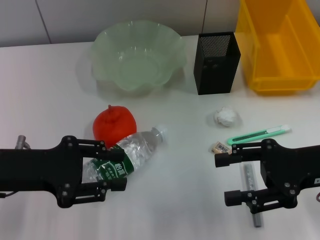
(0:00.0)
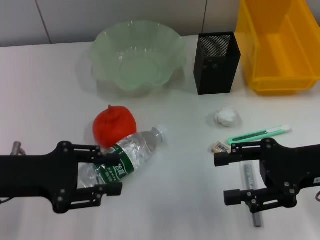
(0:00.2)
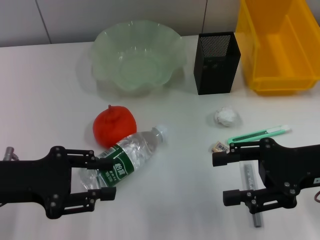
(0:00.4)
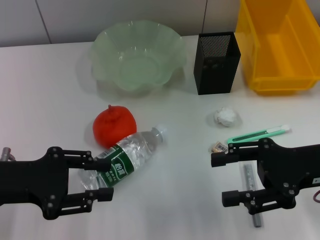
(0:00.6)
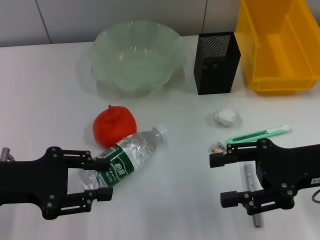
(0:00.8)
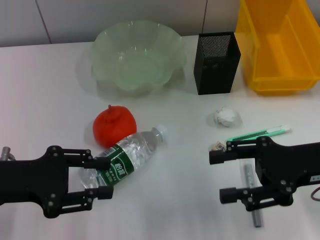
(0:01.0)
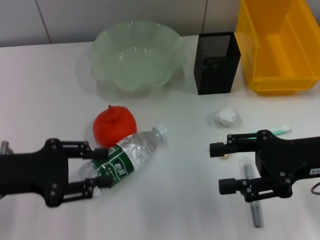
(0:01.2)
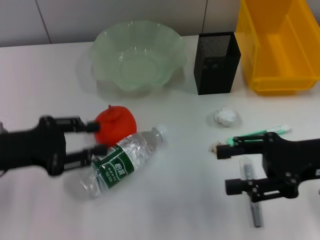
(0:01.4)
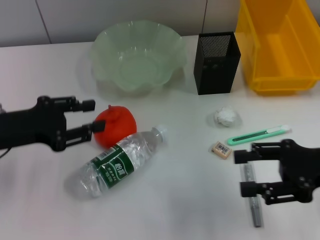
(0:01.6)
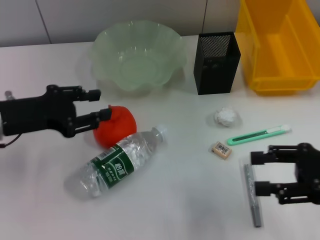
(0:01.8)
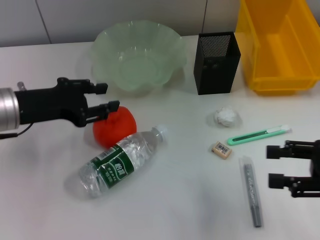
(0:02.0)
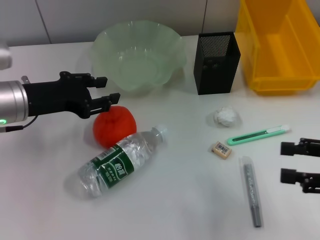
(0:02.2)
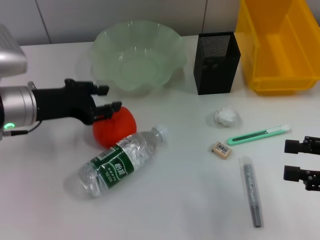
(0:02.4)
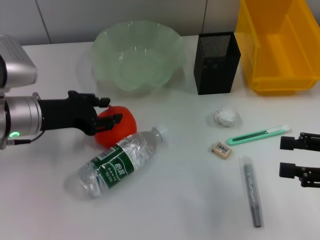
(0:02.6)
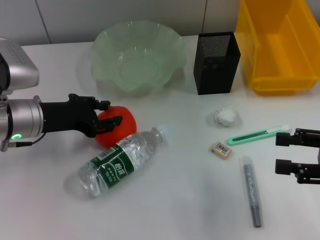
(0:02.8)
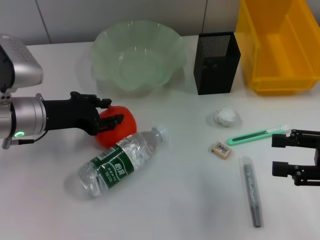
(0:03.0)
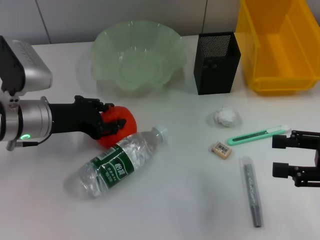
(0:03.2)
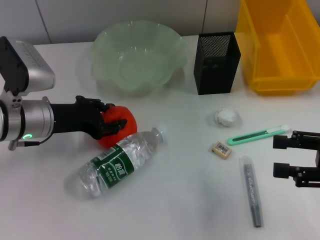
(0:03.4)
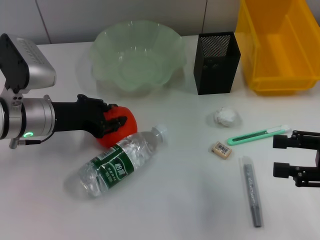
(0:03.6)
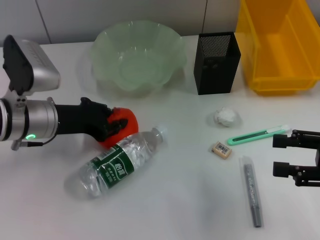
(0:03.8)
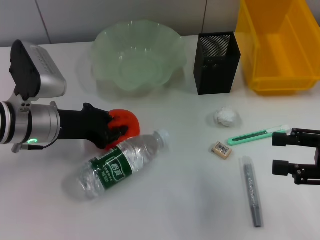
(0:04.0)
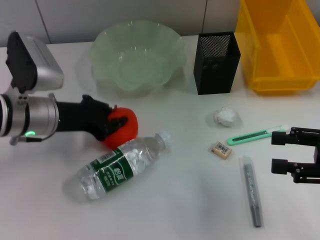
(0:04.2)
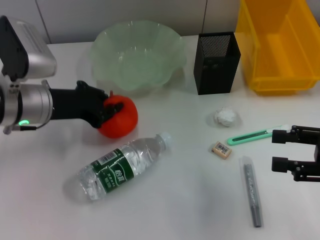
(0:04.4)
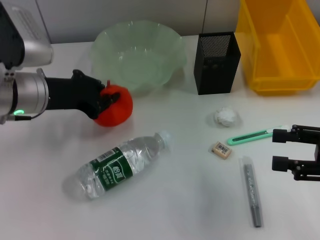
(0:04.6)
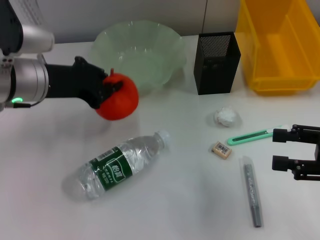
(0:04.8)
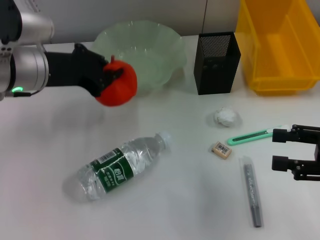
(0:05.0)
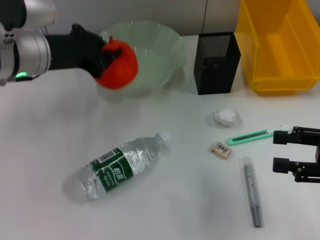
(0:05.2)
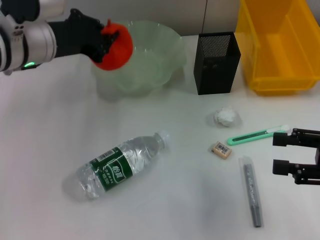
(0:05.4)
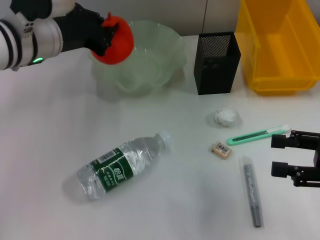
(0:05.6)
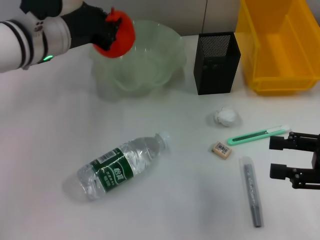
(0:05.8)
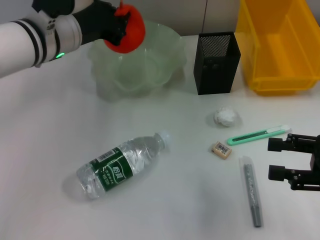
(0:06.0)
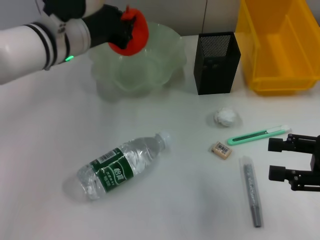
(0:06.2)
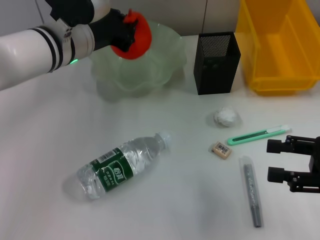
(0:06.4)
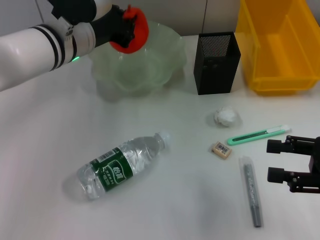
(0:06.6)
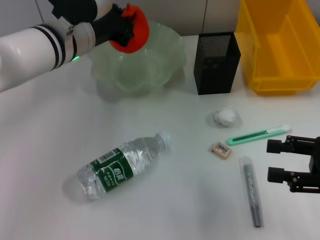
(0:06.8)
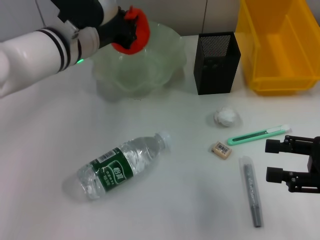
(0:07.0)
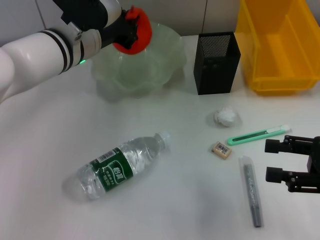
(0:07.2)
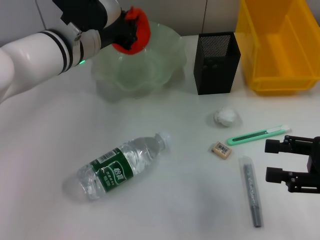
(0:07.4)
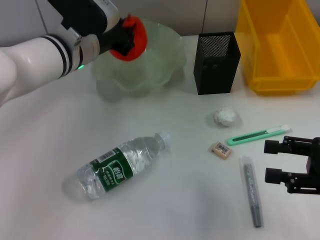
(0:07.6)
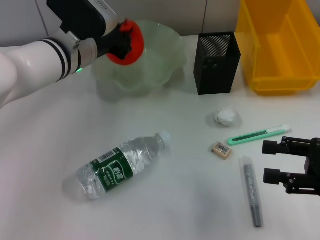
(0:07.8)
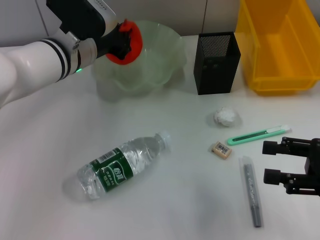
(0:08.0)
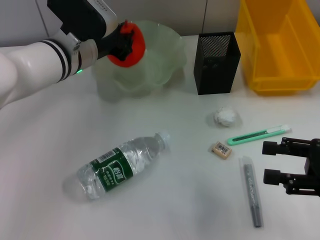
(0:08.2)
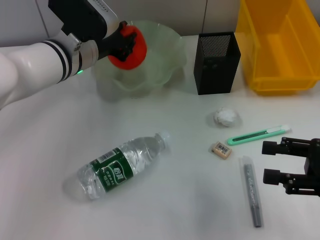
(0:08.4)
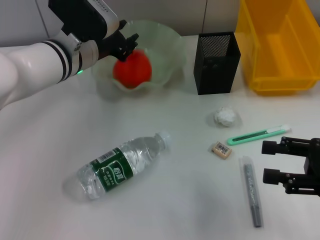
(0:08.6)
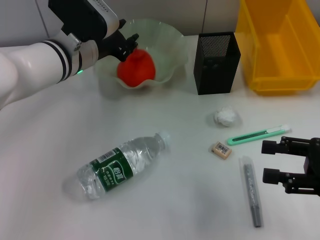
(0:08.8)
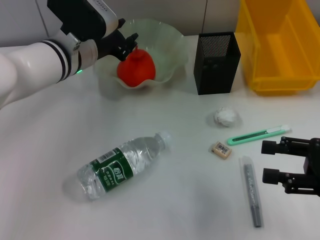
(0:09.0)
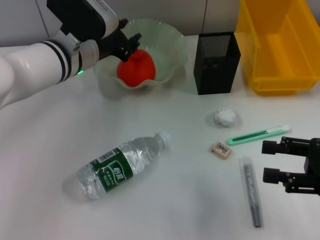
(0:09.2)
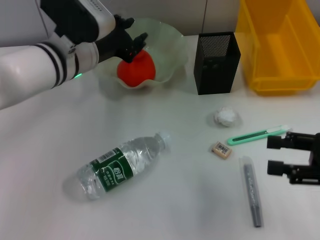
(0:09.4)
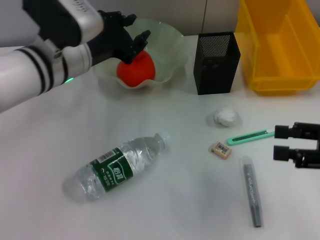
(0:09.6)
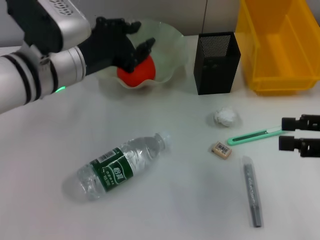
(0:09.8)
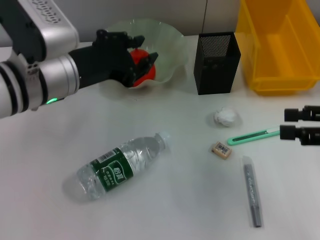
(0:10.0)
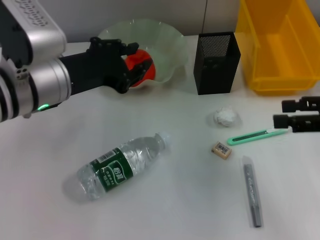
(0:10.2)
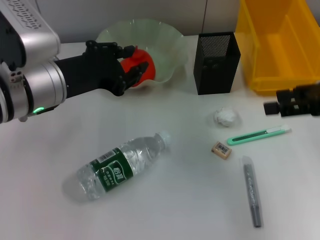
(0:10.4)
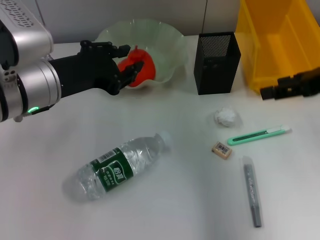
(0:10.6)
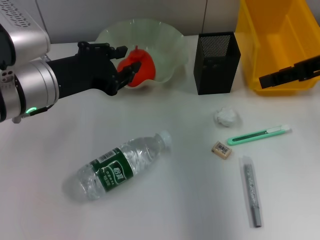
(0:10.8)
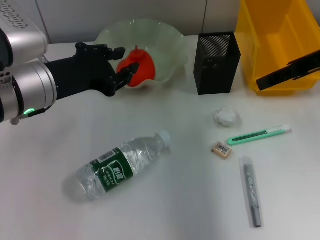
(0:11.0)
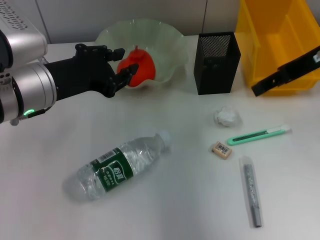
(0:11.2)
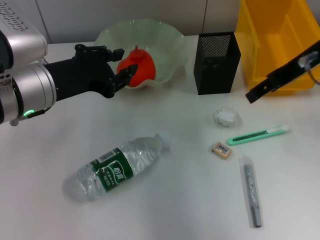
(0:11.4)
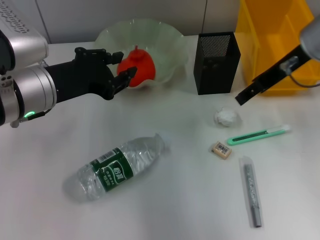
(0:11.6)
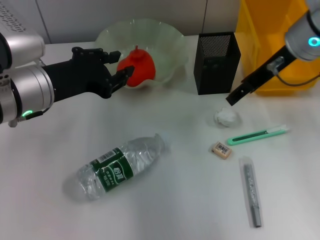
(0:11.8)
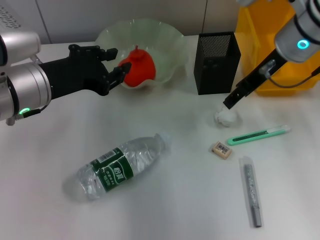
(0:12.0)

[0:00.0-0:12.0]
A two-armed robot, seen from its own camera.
Step, 0:00.0 to 0:03.6: Grab the orange with the left hand.
Step, 0:03.8 to 0:08.8: Place the orange into the fruit bowl with the left hand.
0:00.0 to 0:01.6: There are only small adjustments of the grippers.
0:01.6 to 0:03.0: The left gripper goes some 10 cm forward and to the right.
0:03.0 to 0:04.4: The left gripper closes.
0:04.4 to 0:06.0: The left gripper goes some 10 cm to the right, forward and upward.
0:06.0 to 0:07.6: The grippers make only small movements.
0:07.6 to 0:09.0: The left gripper opens up.
0:09.0 to 0:10.4: The right gripper moves upward and forward, about 10 cm, while the left gripper goes about 10 cm backward.
0:10.4 to 0:12.0: The right gripper moves forward and to the left, roughly 15 cm.

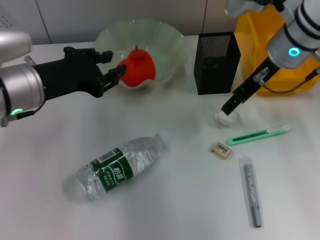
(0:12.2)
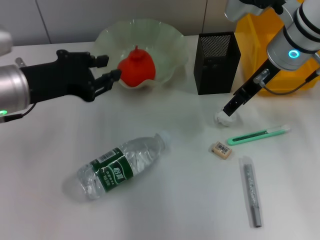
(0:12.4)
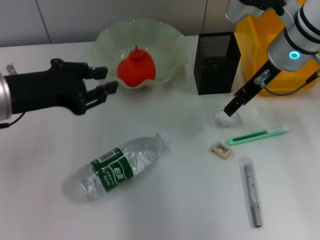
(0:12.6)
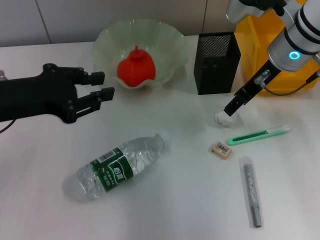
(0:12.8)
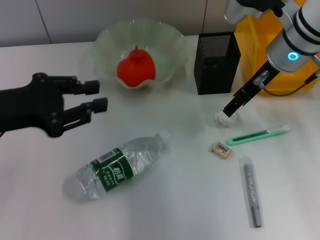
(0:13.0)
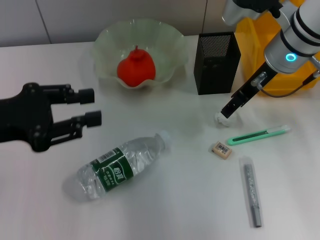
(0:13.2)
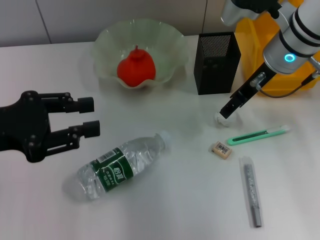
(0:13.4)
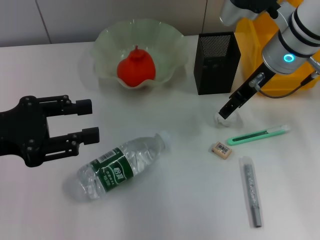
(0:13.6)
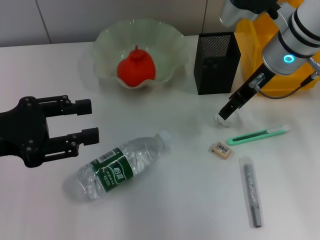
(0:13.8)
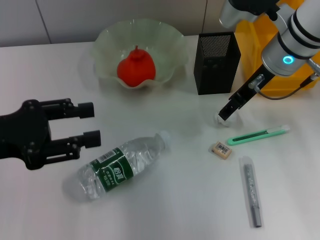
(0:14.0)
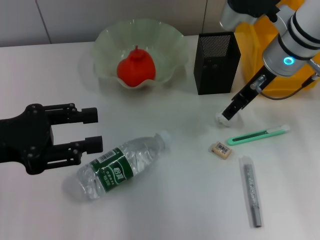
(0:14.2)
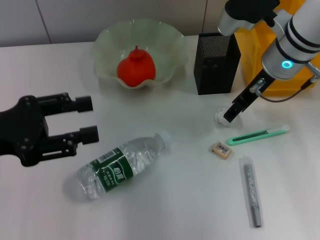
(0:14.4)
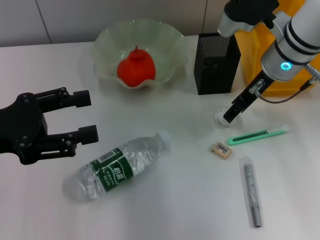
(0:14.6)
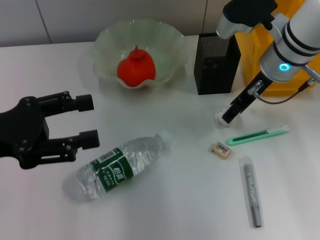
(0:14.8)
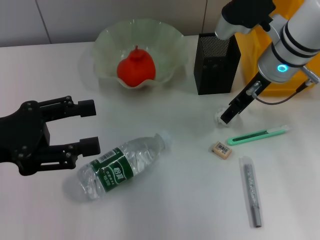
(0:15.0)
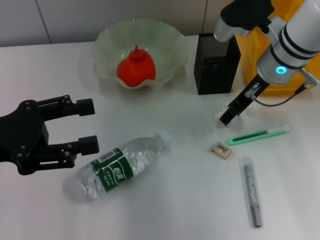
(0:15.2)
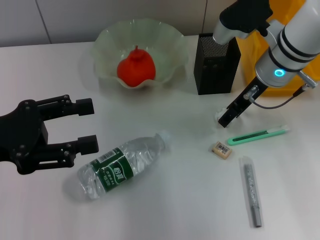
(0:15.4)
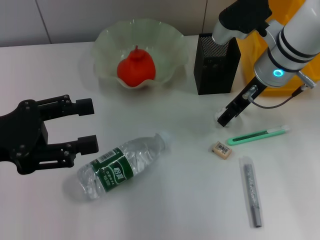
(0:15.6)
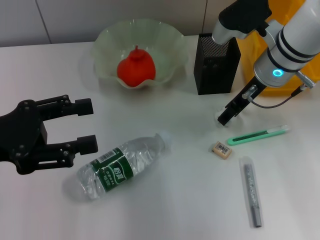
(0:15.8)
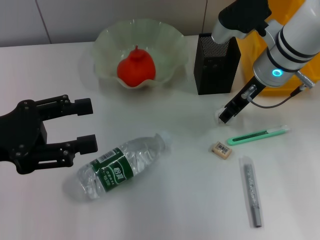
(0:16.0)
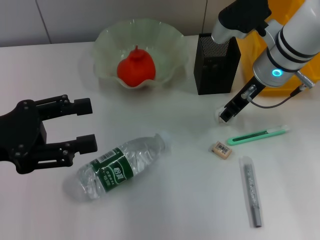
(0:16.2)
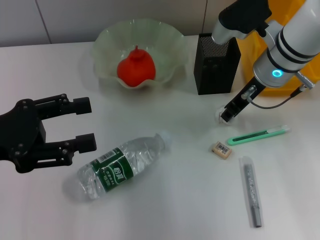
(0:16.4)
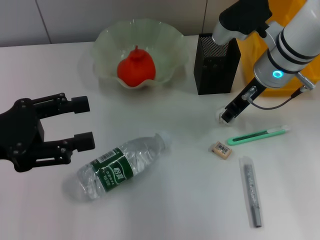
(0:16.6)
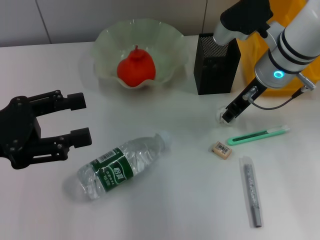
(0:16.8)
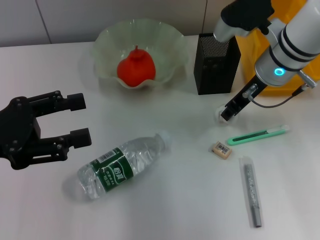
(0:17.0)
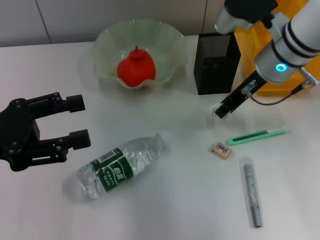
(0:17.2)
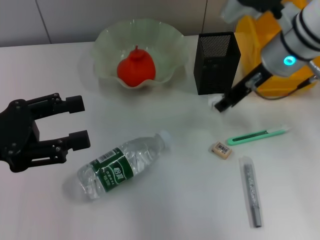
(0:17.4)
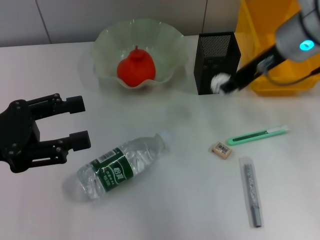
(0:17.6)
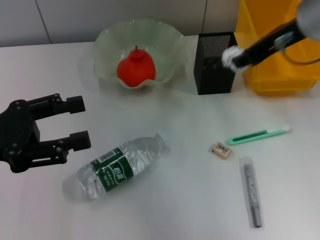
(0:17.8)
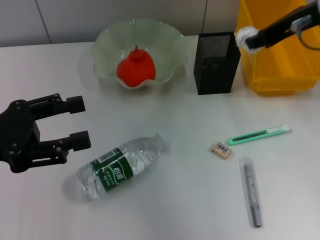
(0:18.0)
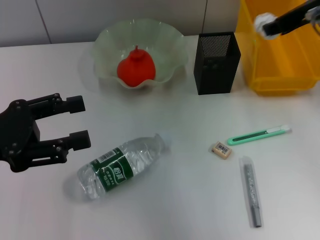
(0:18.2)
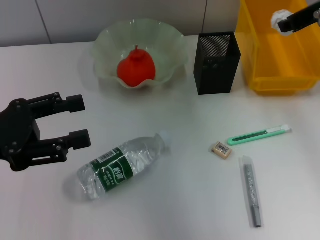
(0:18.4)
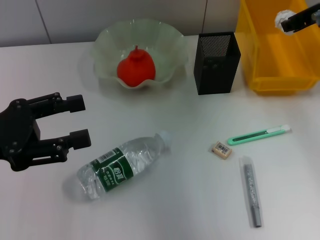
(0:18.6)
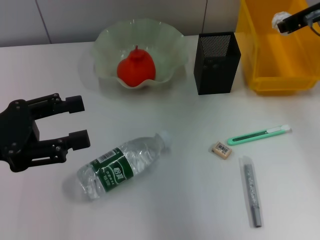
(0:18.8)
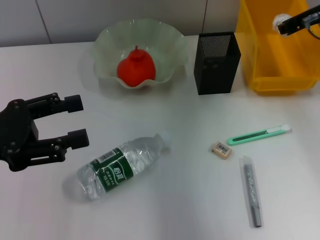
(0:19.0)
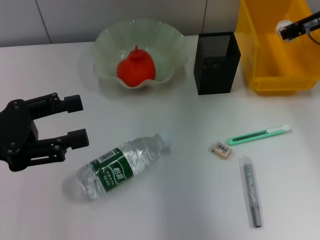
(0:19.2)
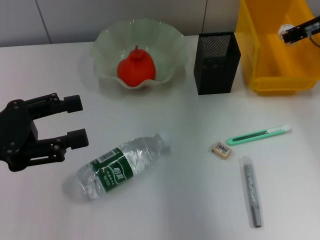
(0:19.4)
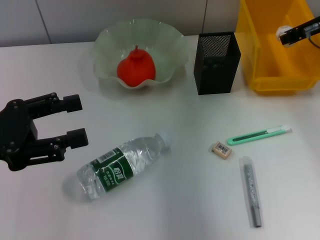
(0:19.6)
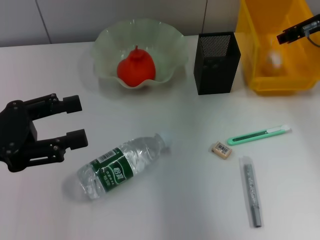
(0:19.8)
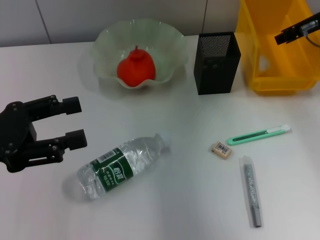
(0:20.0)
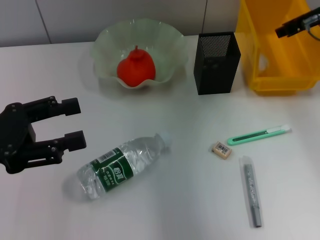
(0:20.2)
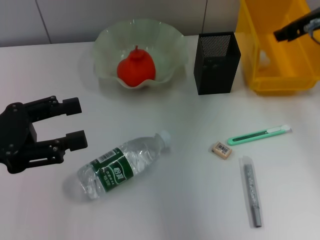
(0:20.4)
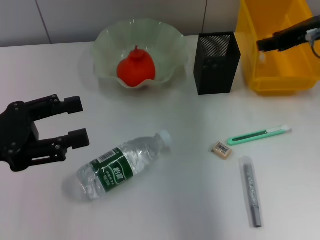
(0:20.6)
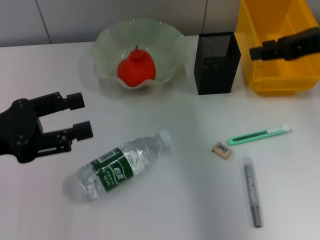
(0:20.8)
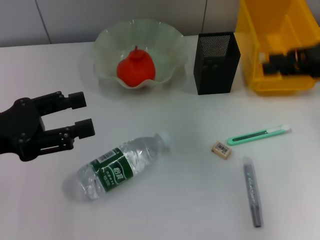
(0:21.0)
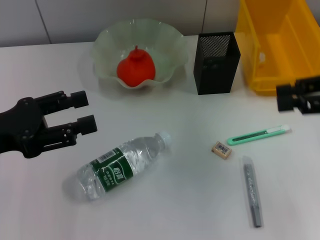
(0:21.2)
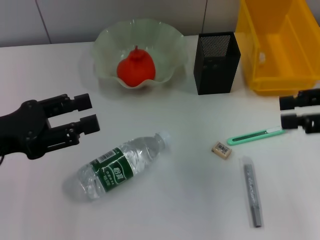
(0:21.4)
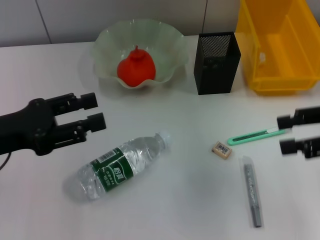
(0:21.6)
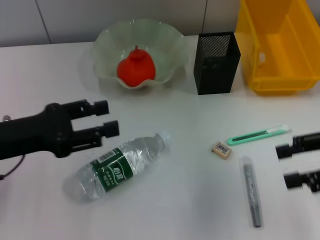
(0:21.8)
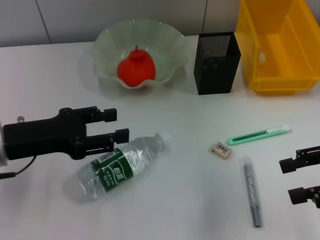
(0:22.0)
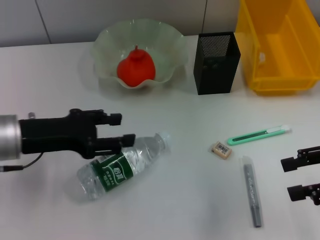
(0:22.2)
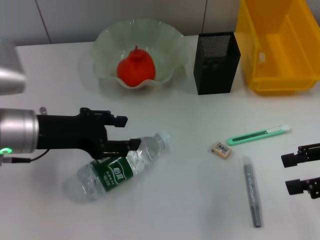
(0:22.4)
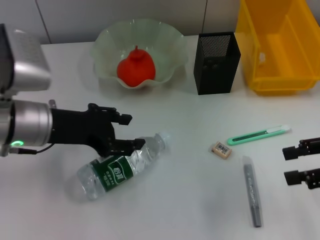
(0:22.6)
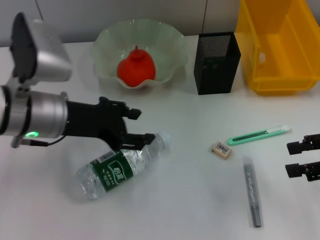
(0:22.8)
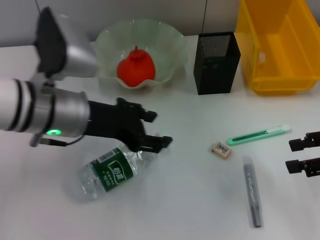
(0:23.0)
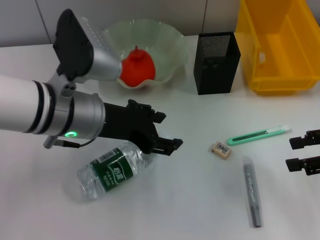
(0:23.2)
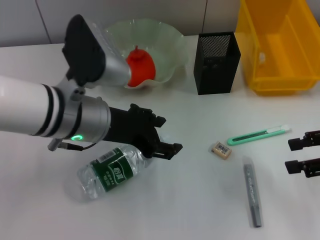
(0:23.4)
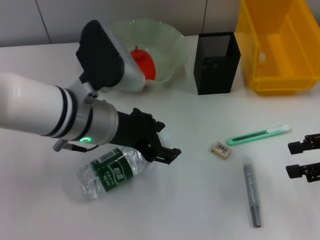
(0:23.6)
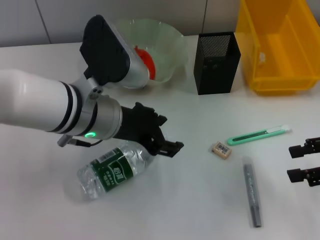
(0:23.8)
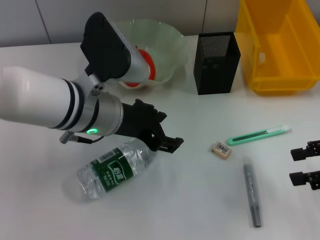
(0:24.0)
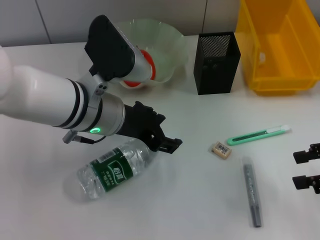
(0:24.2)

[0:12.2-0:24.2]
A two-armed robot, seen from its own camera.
Step, 0:12.2 to 0:16.6: Grab the paper ball with the right hand.
Step, 0:16.8 to 0:20.2: Place the paper ball into the trash can with the right hand.
0:12.2 to 0:13.8: The left gripper heads to the left and backward, covering approximately 10 cm.
0:13.8 to 0:15.2: The grippers stay close to where they were, moving slightly.
0:15.2 to 0:16.6: The right gripper closes its fingers.
0:16.6 to 0:18.2: The right gripper heads upward and to the right, covering approximately 15 cm.
0:18.2 to 0:19.8: The right gripper is displaced downward and forward by roughly 10 cm.
0:19.8 to 0:21.2: The right gripper heads backward and to the right, covering roughly 15 cm.
0:21.2 to 0:22.6: The right gripper is displaced downward by approximately 5 cm, and opens up; the left gripper moves to the right and forward, about 10 cm.
0:22.6 to 0:24.2: The left gripper heads to the right, covering approximately 10 cm.
